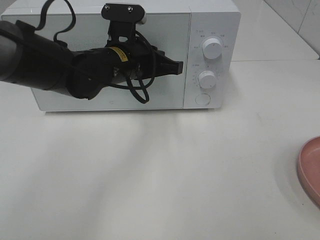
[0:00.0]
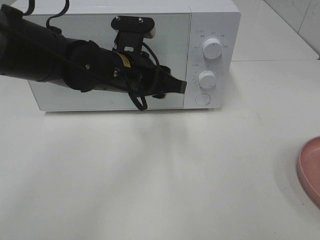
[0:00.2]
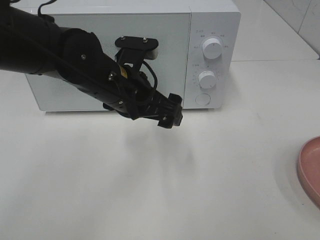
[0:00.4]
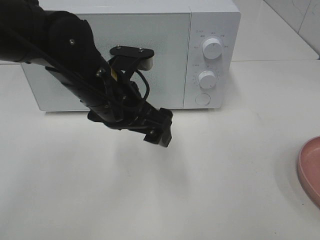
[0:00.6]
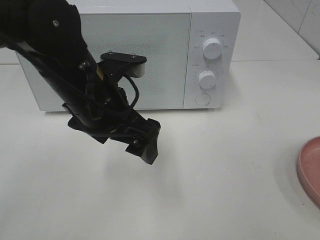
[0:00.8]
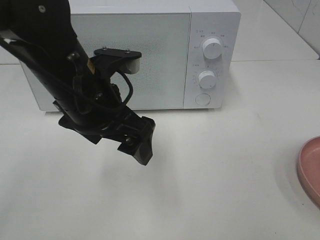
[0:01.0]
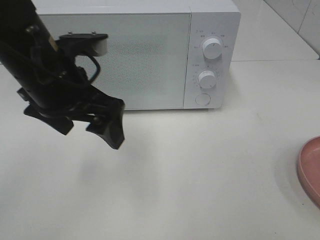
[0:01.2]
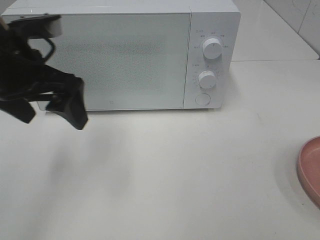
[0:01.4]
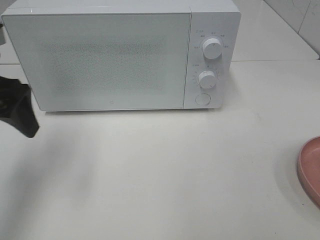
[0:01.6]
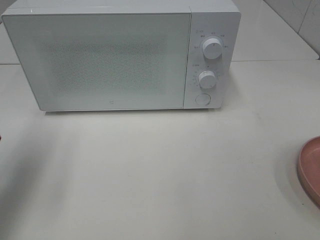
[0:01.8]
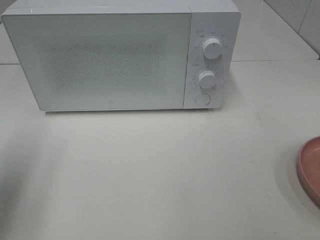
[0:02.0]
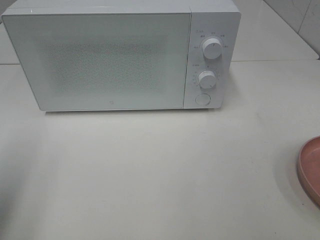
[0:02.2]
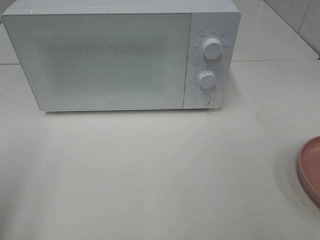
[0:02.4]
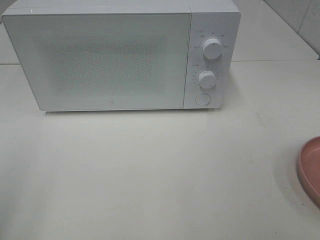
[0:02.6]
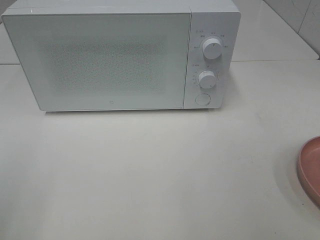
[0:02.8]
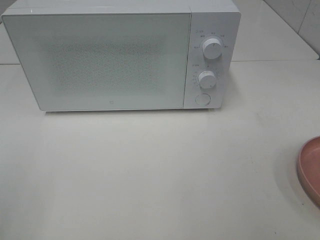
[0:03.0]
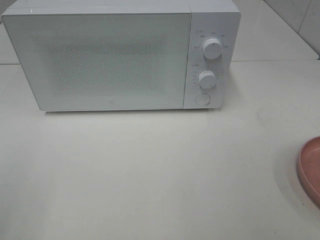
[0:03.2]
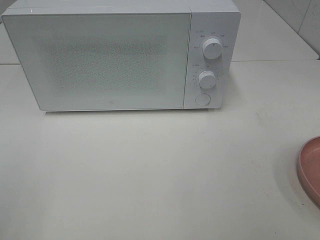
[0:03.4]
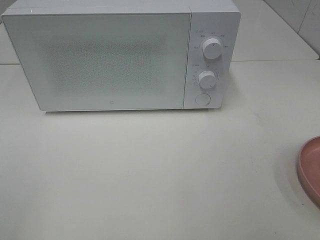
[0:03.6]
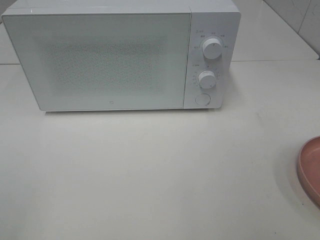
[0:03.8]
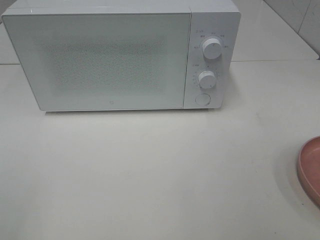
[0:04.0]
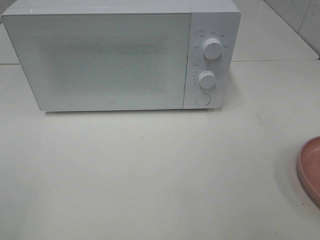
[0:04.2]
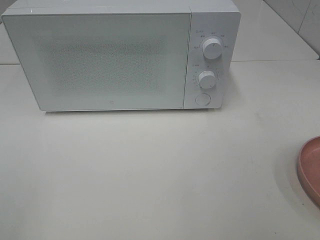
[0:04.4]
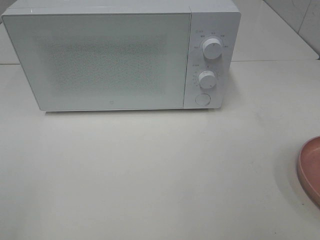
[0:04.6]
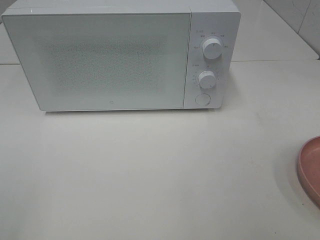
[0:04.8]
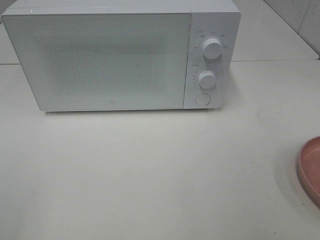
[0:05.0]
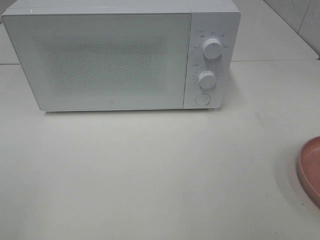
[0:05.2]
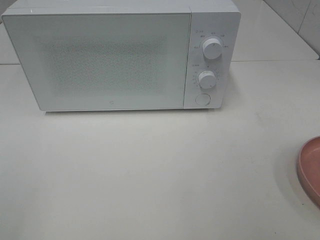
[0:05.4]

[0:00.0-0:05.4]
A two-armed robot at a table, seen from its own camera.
Task of the whole recording: Heat the burger.
0:00.0 to 0:01.4: The left gripper is displaced to the left, upward and backward by some 15 cm, and opens.
0:01.4 to 0:02.8: The left gripper shifts some 25 cm backward and to the left.
0:04.0 to 0:05.4: Both grippers stay about where they are.

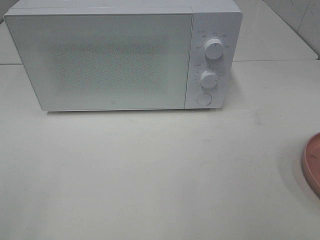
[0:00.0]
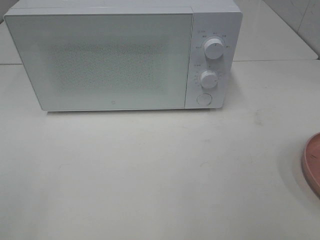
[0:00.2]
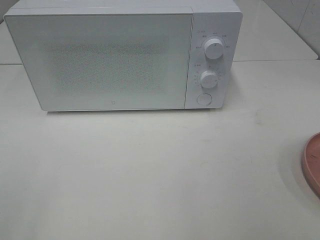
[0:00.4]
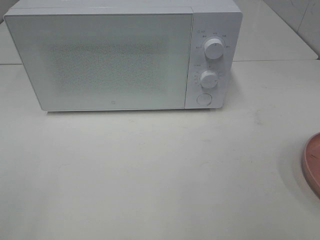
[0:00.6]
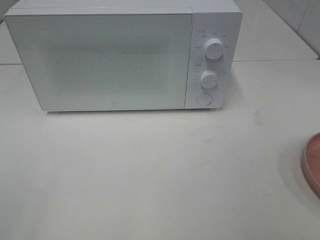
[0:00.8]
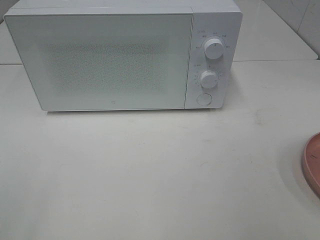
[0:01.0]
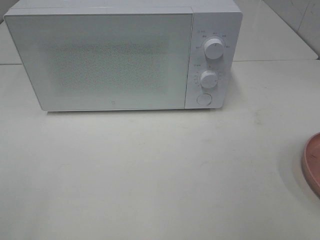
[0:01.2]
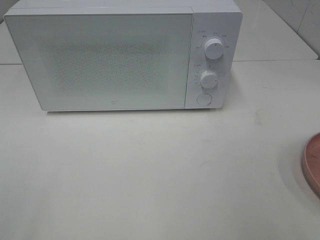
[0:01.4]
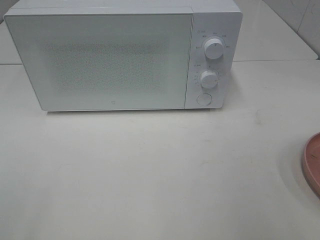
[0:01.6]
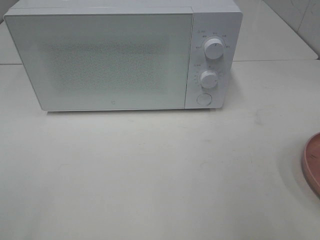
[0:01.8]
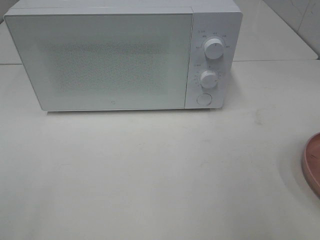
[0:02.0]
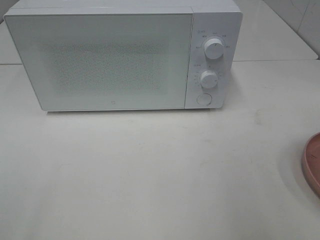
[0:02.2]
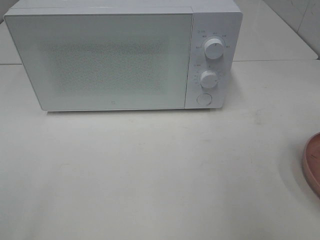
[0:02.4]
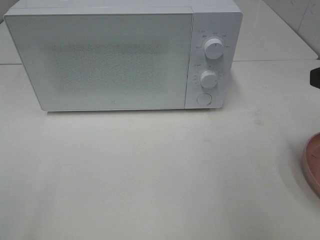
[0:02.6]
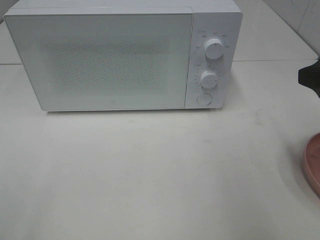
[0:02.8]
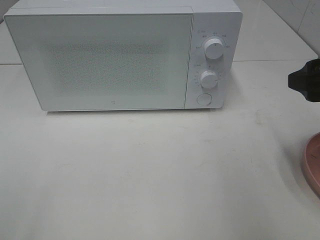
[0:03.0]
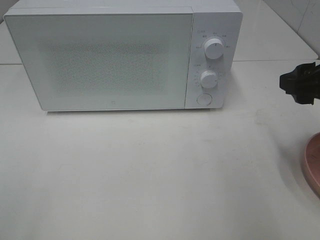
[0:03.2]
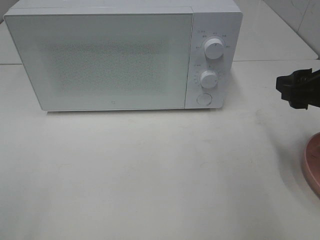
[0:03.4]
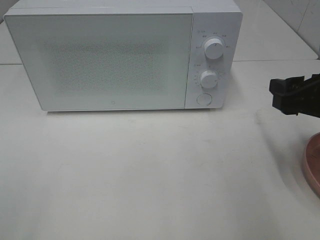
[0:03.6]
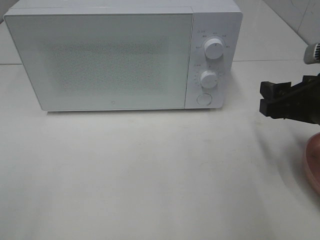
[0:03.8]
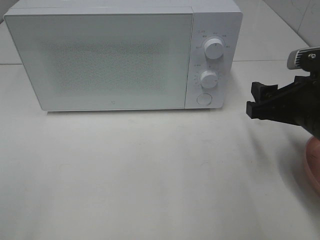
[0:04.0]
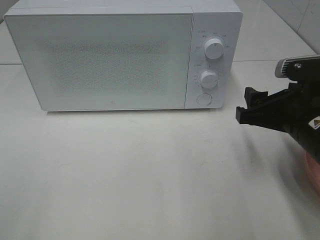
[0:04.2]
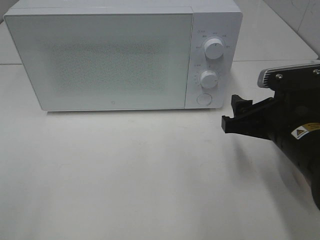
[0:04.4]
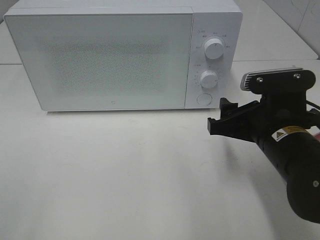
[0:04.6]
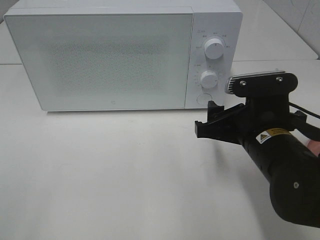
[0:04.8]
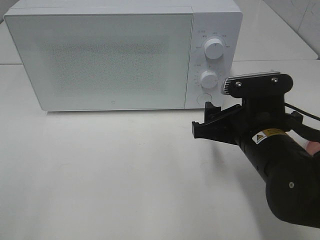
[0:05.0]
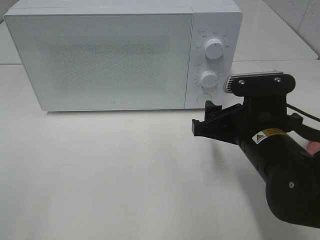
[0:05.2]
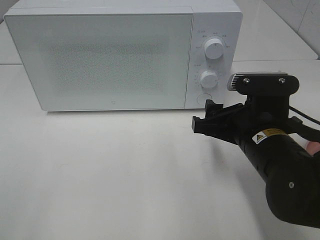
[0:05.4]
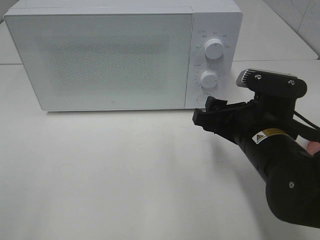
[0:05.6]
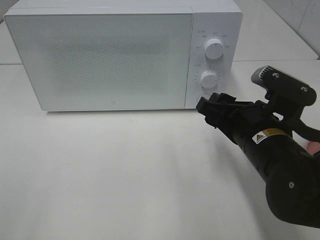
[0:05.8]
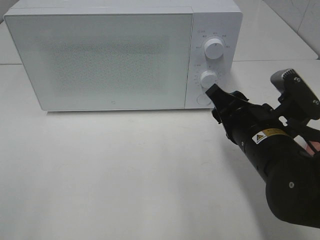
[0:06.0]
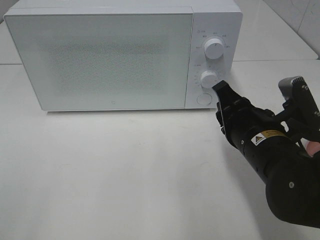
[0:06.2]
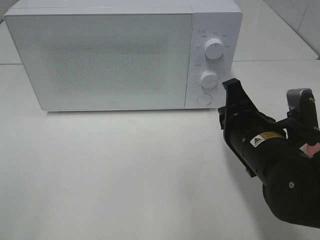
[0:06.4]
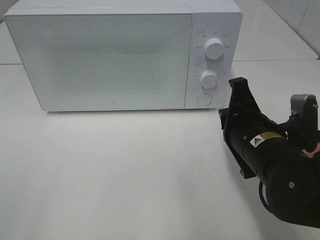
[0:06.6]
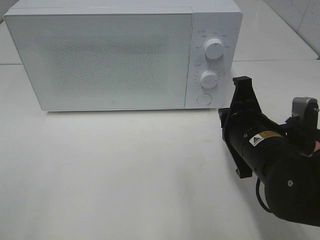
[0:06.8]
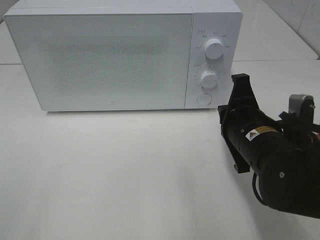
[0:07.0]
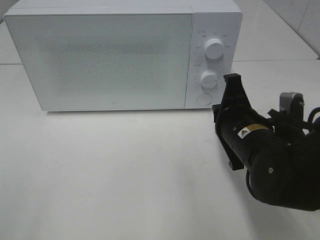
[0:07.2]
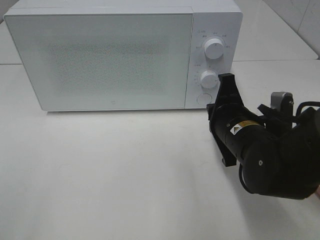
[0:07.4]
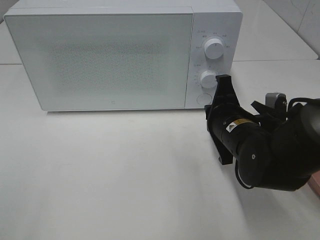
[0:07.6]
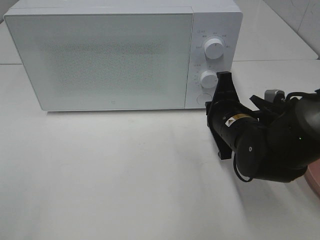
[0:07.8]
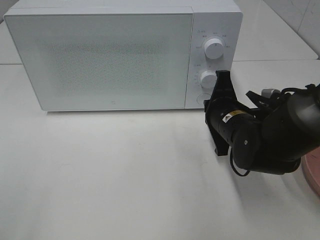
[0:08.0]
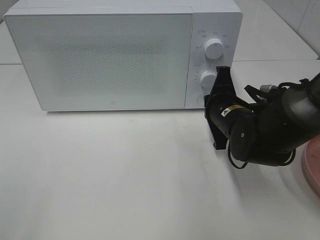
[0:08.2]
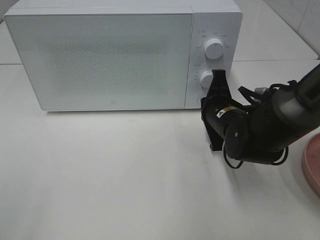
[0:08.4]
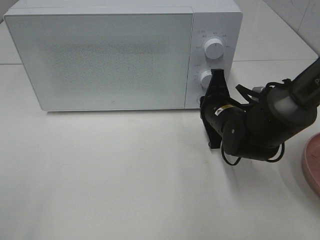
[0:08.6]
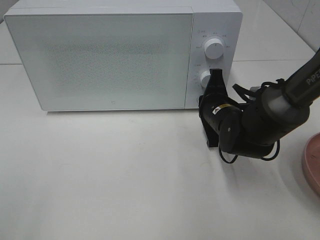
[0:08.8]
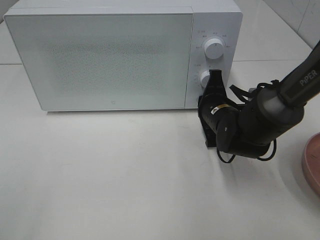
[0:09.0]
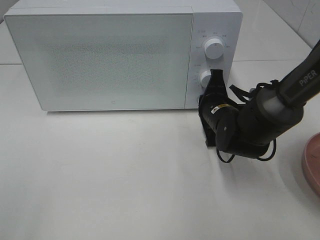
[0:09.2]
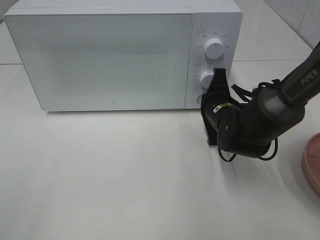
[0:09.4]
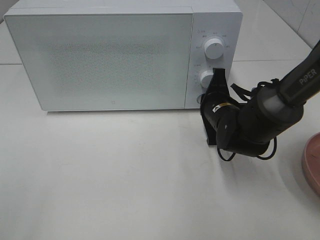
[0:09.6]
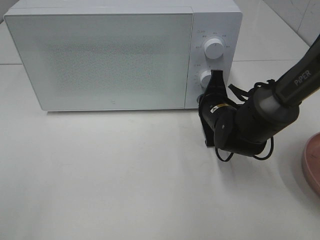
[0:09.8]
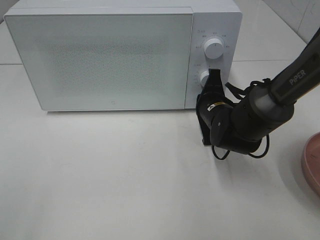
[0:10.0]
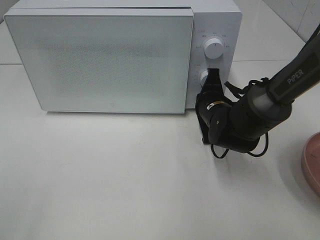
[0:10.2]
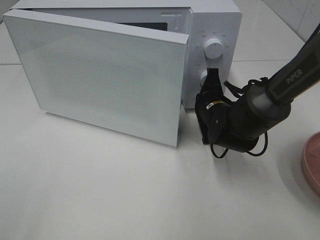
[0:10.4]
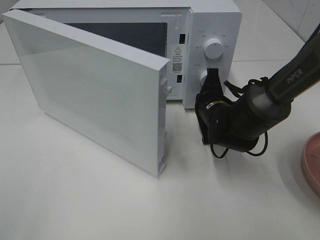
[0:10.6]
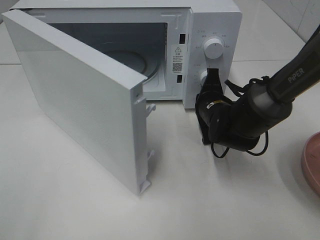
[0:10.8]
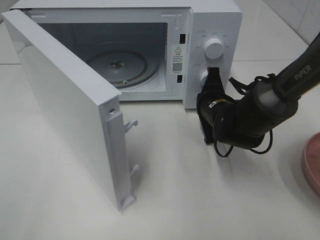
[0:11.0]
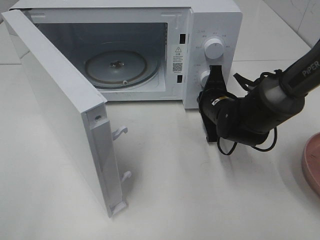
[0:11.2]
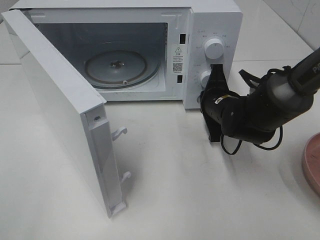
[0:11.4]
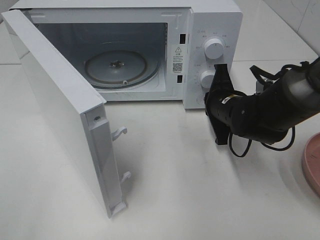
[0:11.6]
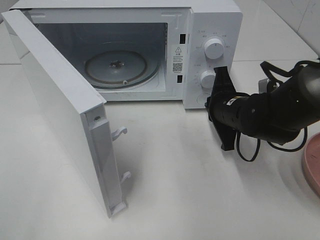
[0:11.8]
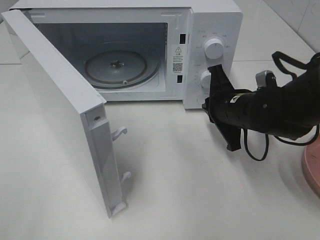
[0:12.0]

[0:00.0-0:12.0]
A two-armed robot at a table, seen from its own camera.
Task of the whole recording: Heat the burger.
0:01.6 to 0:03.0: The right gripper shifts some 15 cm forward.
0:03.0 to 0:04.4: The right gripper is displaced downward and to the left by about 10 cm.
0:06.0 to 0:07.6: The right gripper travels forward by about 5 cm, and closes.
0:07.6 to 0:09.0: The right gripper moves forward, approximately 5 cm.
0:09.0 to 0:10.4: The grippers make only small movements.
0:10.4 to 0:12.0: The right gripper travels upward by approximately 5 cm.

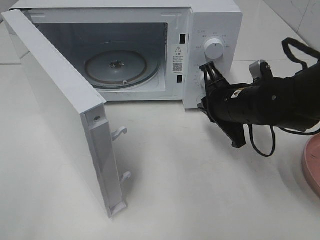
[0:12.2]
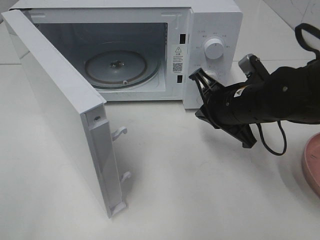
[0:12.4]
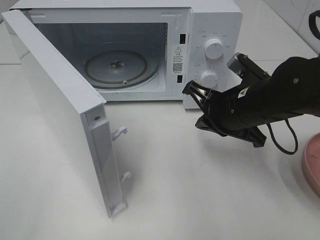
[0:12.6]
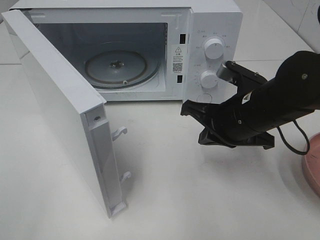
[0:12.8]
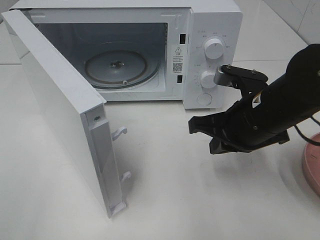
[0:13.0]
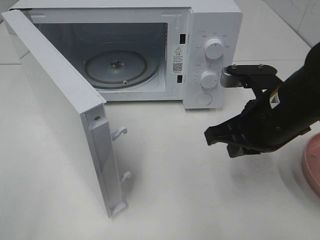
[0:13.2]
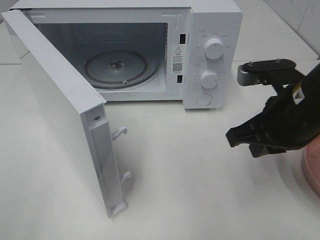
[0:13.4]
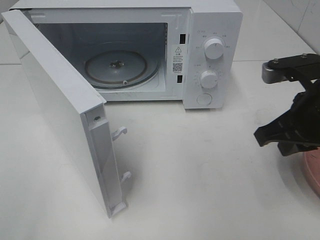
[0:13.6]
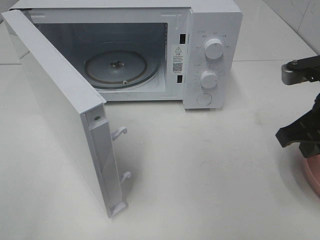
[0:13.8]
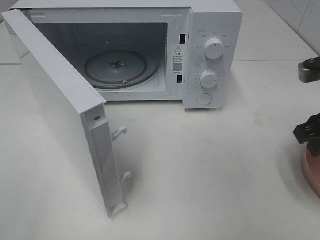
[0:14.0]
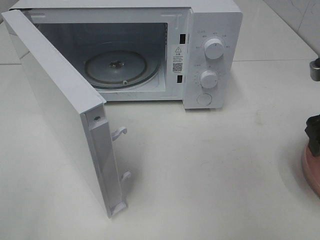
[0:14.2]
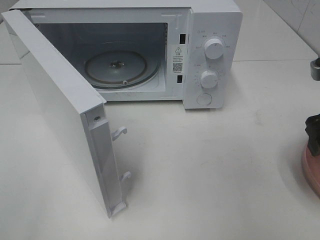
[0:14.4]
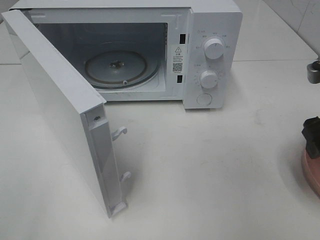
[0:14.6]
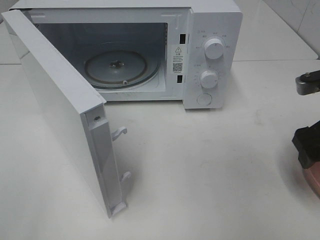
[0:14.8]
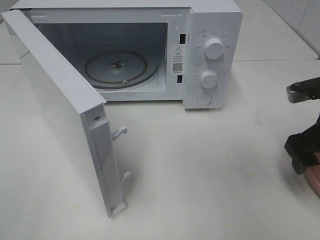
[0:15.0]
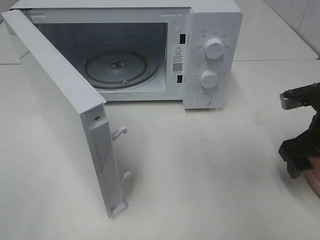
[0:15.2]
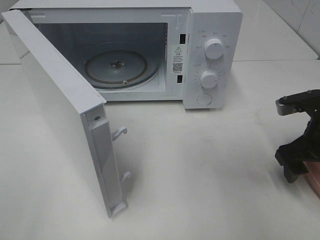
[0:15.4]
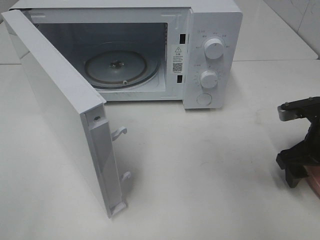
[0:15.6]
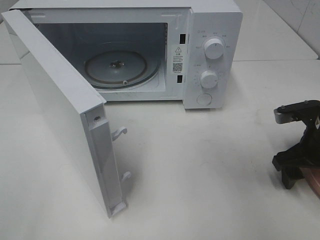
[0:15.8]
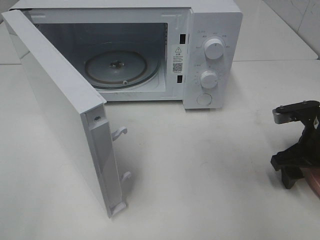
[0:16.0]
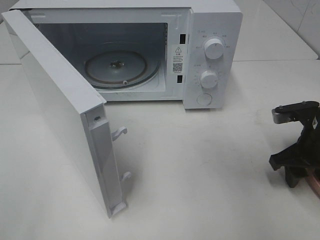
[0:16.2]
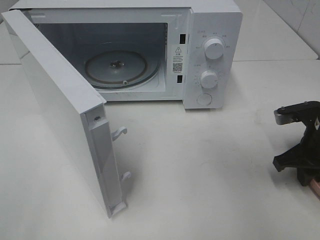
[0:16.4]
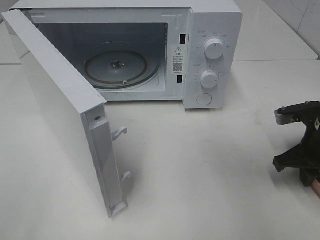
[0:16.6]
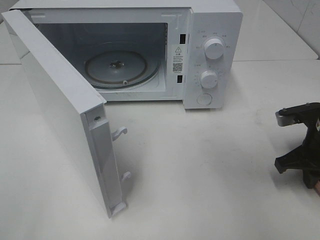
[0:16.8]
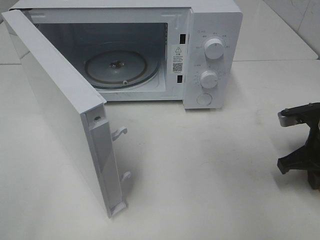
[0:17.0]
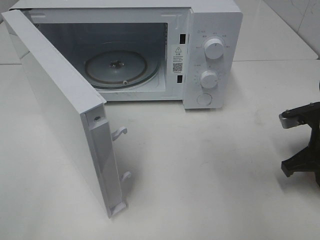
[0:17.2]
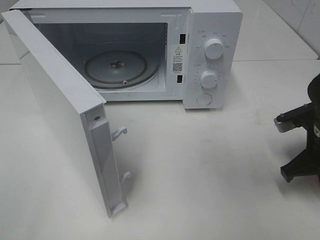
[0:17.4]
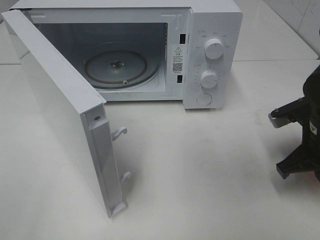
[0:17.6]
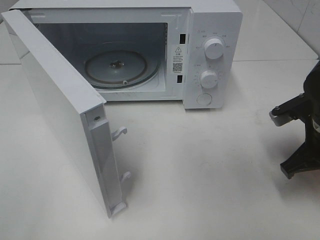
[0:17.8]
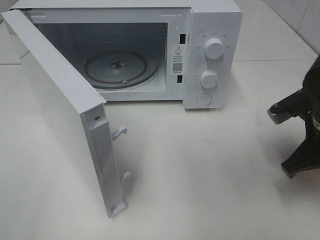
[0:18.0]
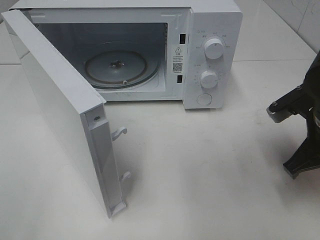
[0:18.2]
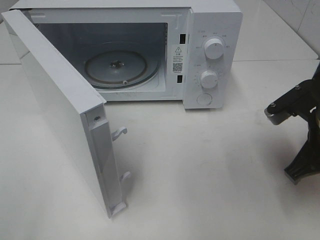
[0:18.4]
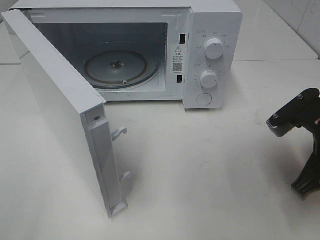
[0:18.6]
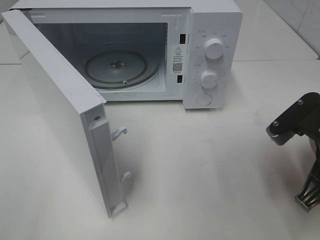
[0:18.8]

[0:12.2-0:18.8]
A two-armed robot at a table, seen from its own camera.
Task of the whole recording: Heat the burger.
Step, 0:12.4 to 0:17.4: Right hand: grab the plate with the hamburger.
0:12.2 to 0:13.8: The right gripper goes about 15 cm to the right, backward and upward.
0:13.8 to 0:15.4: The right gripper is displaced downward by some 10 cm, and opens its fingers.
0:15.4 to 0:17.2: The right gripper closes up.
0:17.2 to 0:18.8: The right gripper travels backward, upward and to the left by roughly 10 cm.
